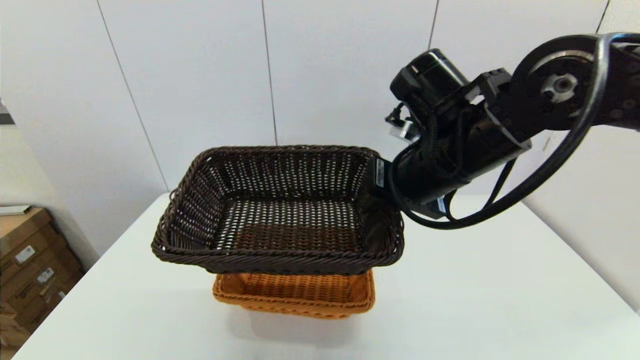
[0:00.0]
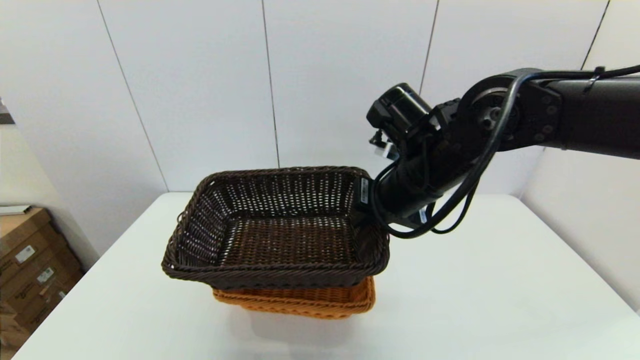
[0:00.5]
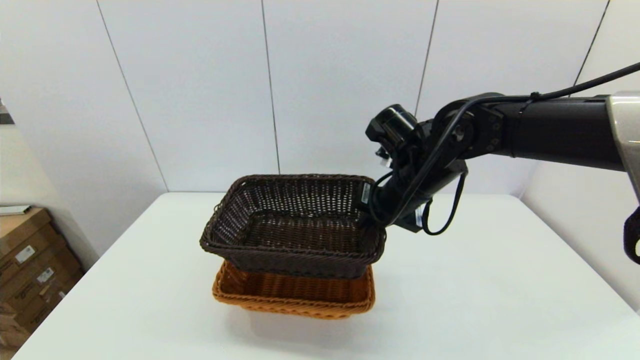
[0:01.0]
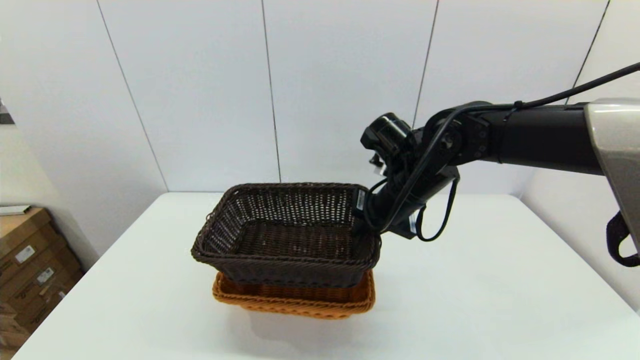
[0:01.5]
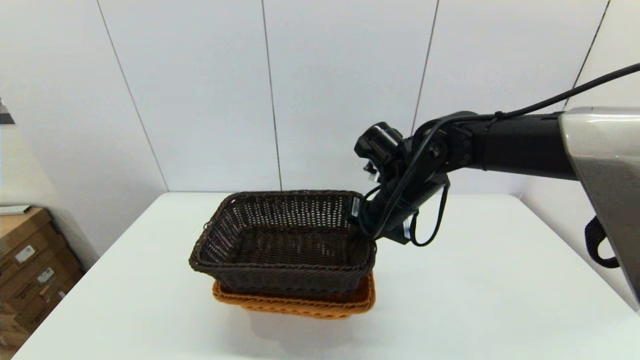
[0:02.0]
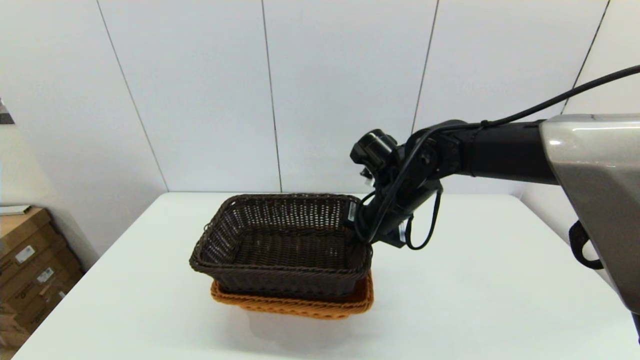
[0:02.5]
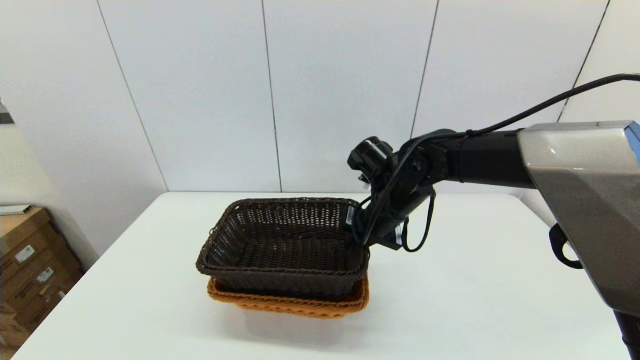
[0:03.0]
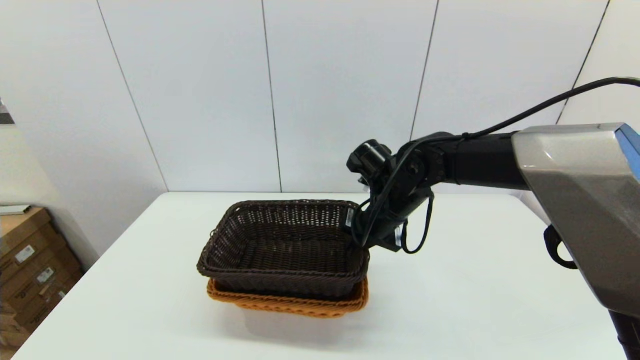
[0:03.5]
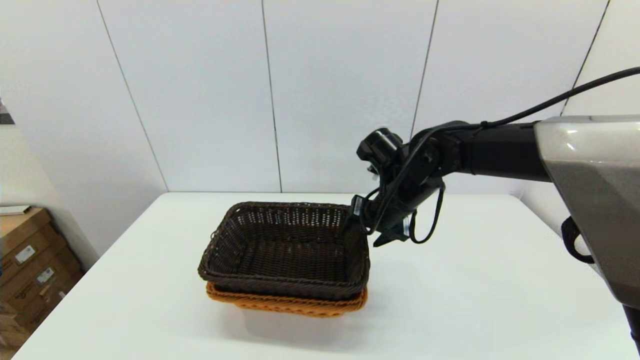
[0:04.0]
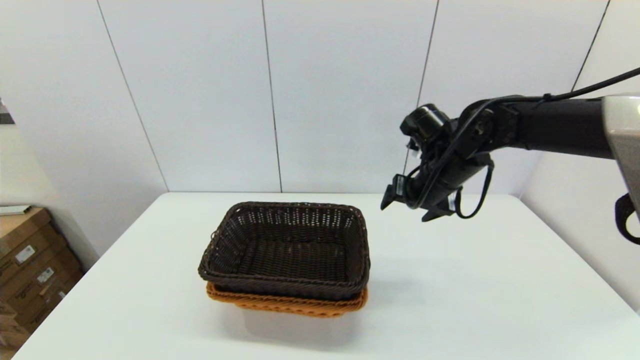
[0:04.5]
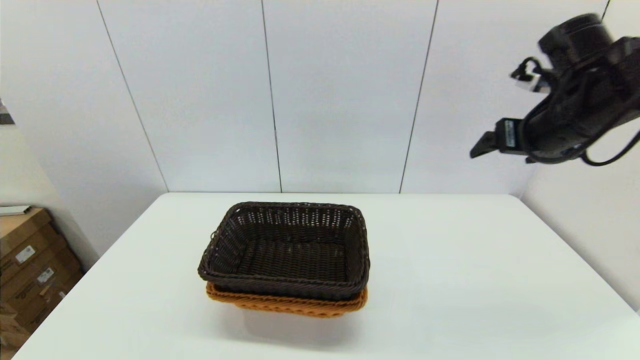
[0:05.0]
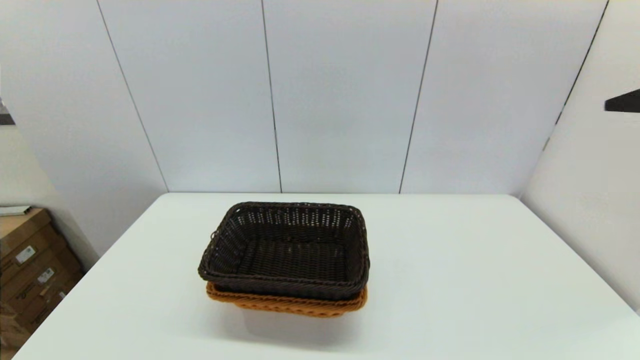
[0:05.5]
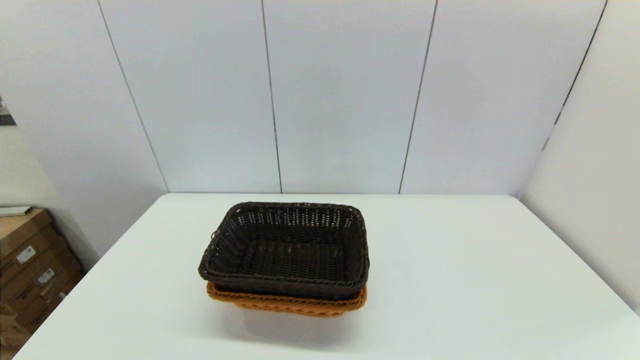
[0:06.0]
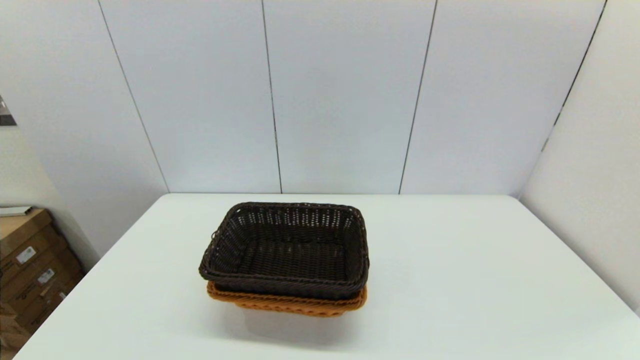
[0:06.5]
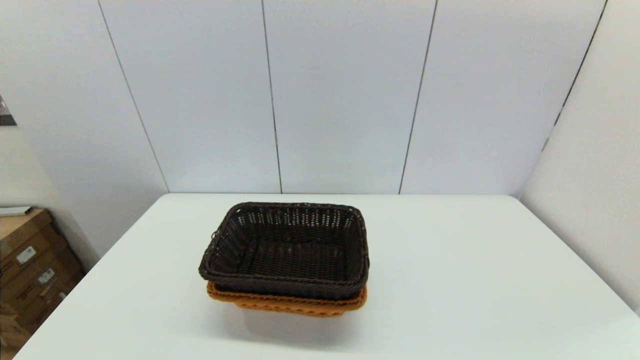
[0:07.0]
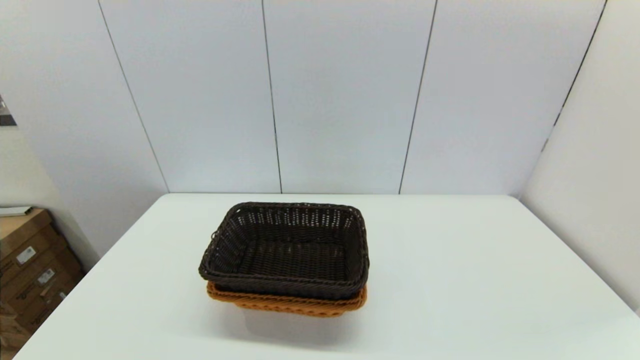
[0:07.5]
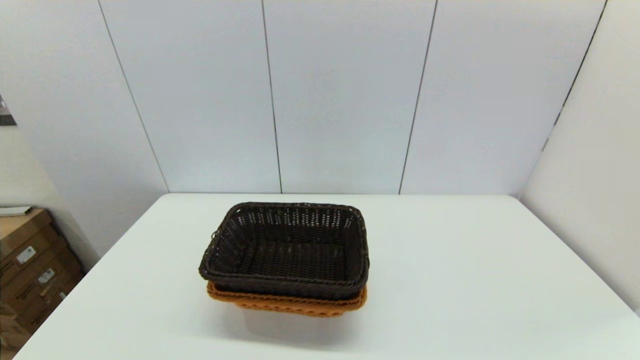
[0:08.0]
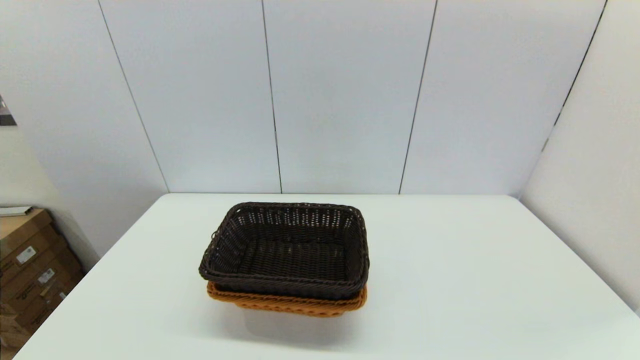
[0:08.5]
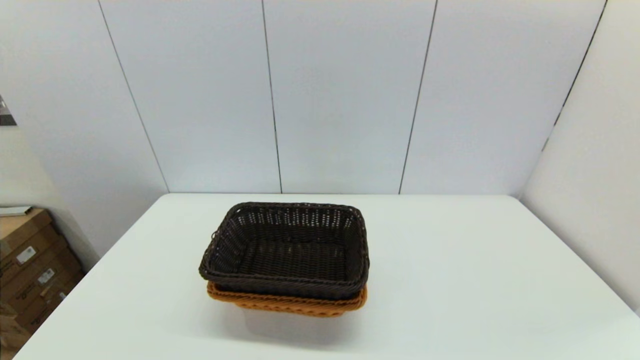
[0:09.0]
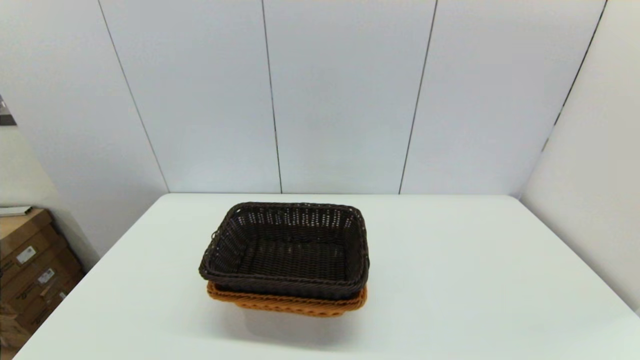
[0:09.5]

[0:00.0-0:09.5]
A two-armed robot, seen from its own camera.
Task of the whole recording: stack a basket on top of another basket.
Step, 0:00.0 to 0:04.5: Place the dark basket into the light color basket with the right gripper.
0:00.0 to 0:02.0: The right gripper travels downward and forward by roughly 10 cm.
0:02.0 to 0:04.0: The right gripper opens its fingers.
0:04.0 to 0:05.5: The right gripper goes some 35 cm to the right, upward and backward.
0:07.5 to 0:09.5: The two grippers keep their place.

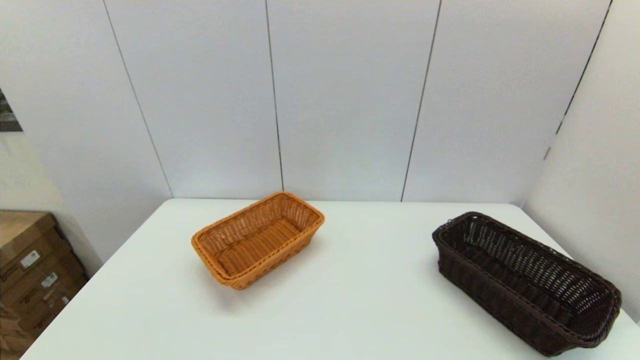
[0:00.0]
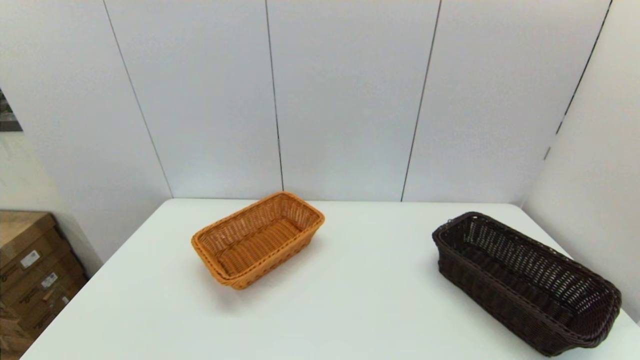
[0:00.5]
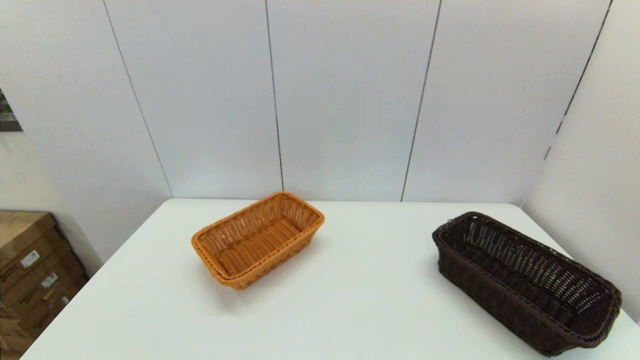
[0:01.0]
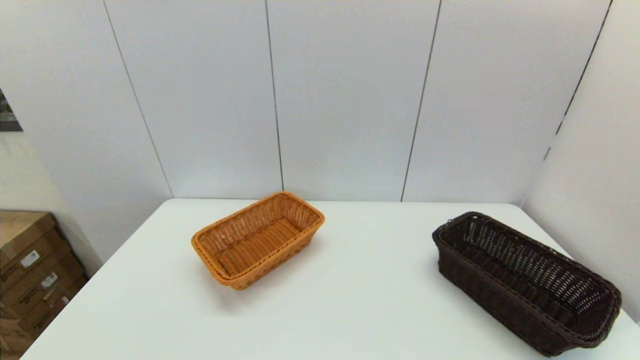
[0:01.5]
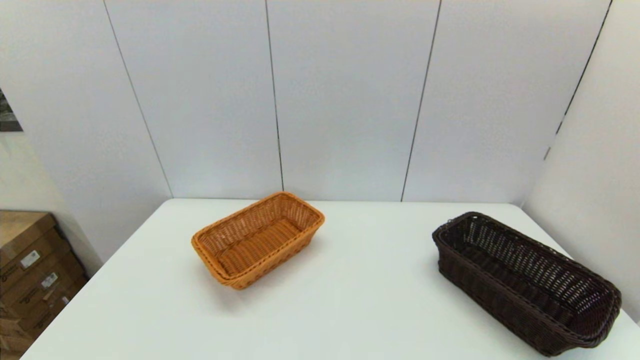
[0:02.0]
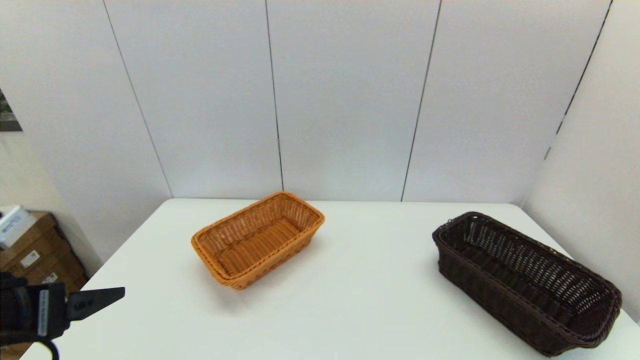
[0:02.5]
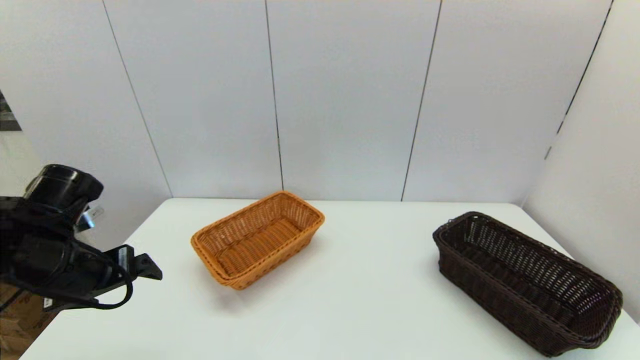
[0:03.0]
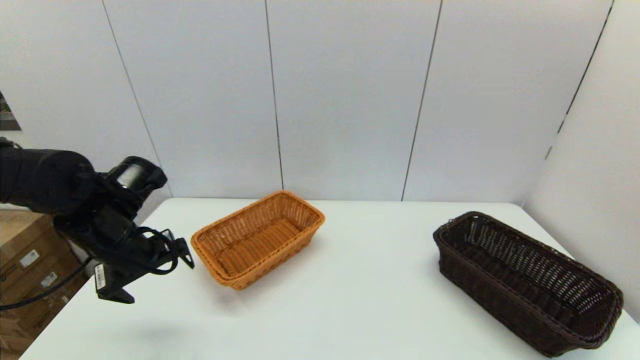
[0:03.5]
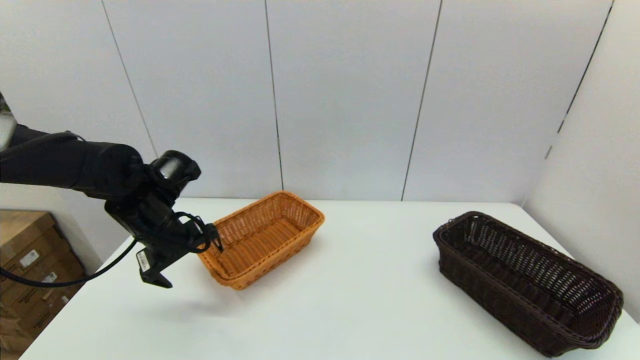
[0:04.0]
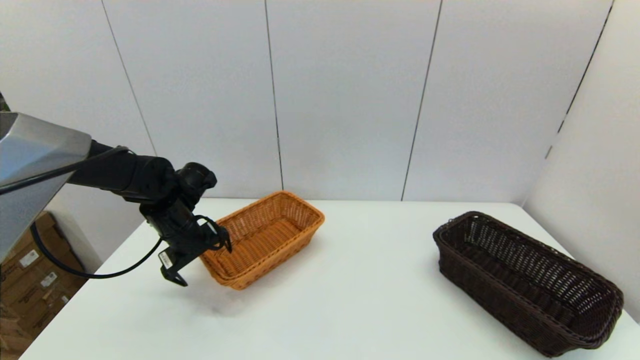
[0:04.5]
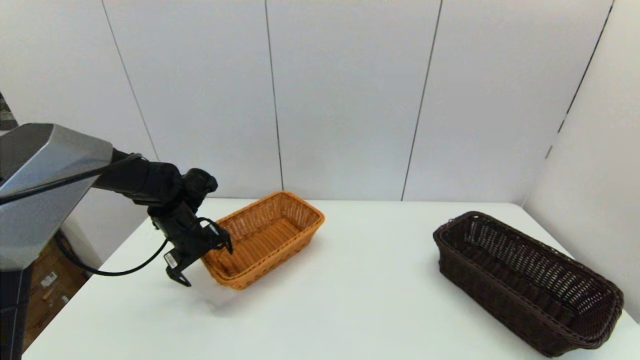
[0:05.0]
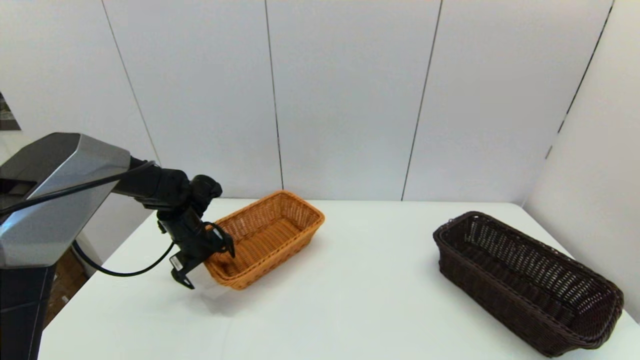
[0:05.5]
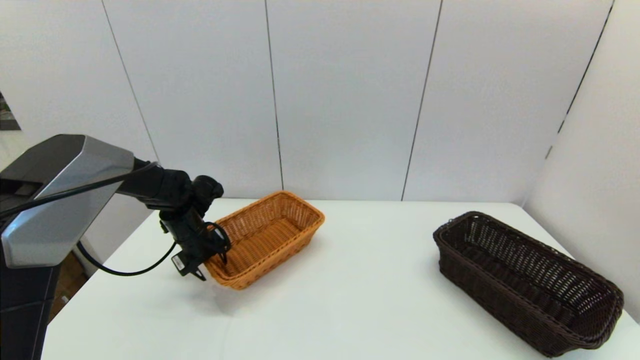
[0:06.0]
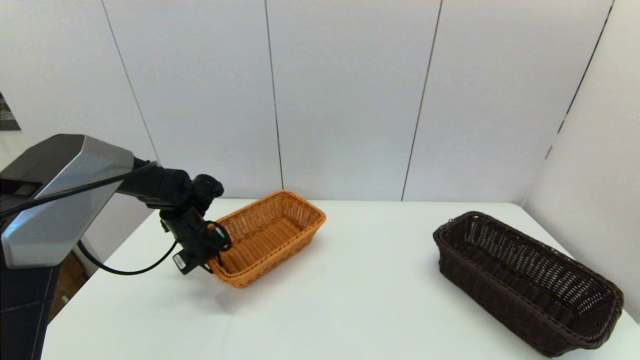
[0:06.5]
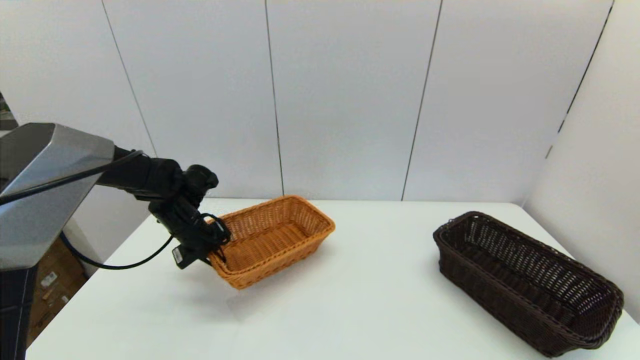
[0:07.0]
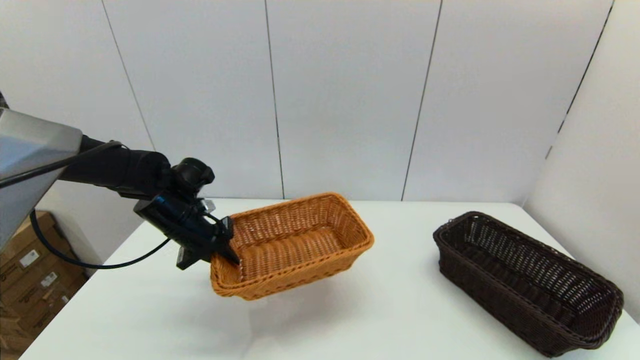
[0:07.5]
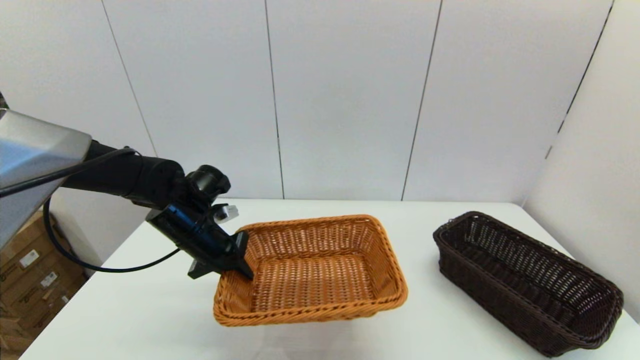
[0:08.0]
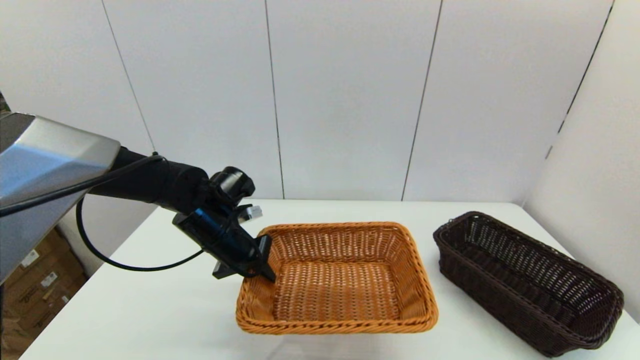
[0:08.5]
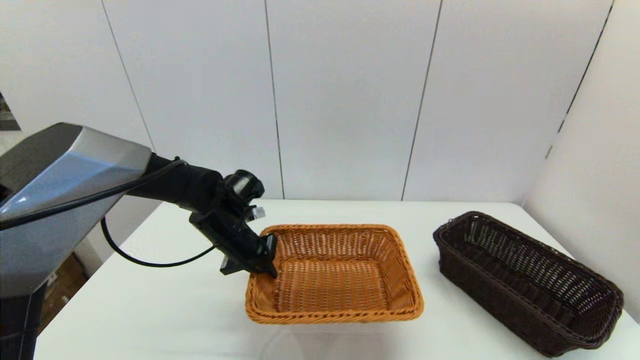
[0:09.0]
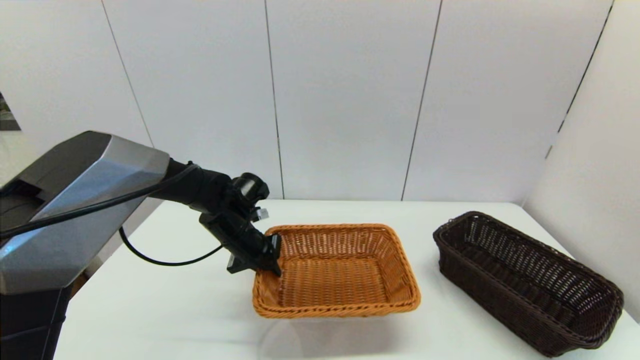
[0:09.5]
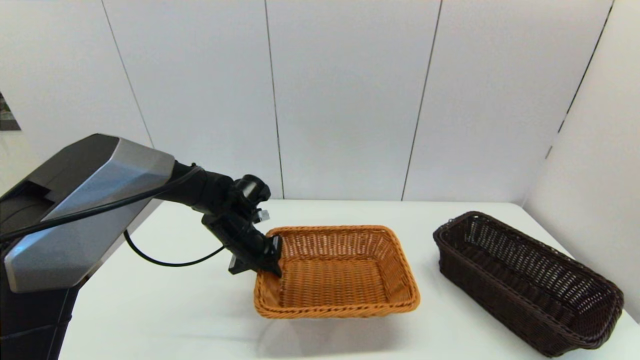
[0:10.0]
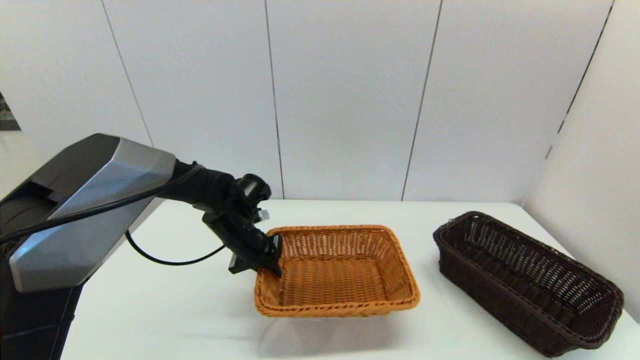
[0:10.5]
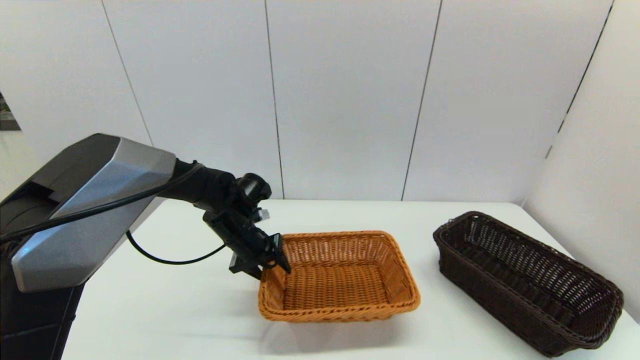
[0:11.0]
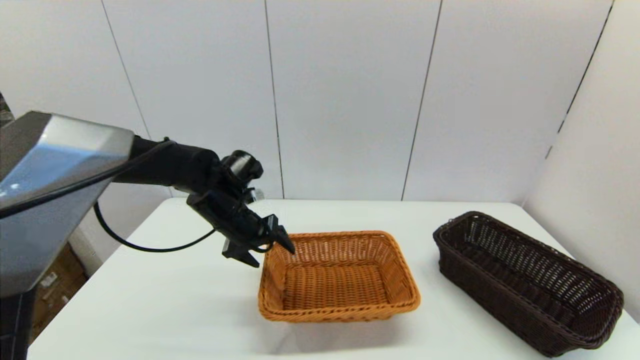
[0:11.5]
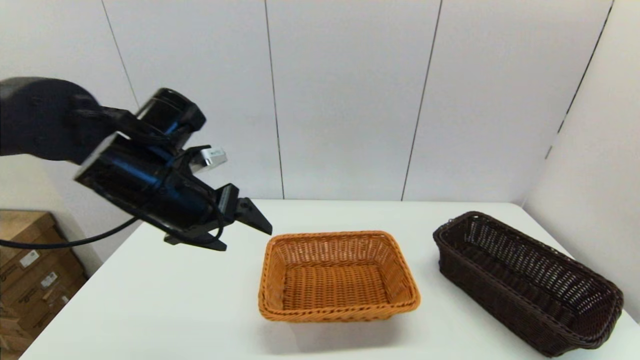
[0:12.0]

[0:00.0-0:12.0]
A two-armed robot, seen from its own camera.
Task of the whole recording: stack a basket on top of another basket.
Step, 0:02.5 to 0:06.0: Grasp the light basket with the left gripper.
Step, 0:06.5 to 0:11.5: Place the light basket on the middle of the table with the left gripper.
0:02.0 to 0:04.0: The left gripper moves forward, roughly 35 cm.
0:04.0 to 0:06.0: The left gripper heads downward and forward, covering some 10 cm, and closes its fingers.
0:06.0 to 0:08.0: The left gripper shifts some 10 cm backward and upward, and closes.
0:08.0 to 0:10.0: The left gripper shifts roughly 5 cm to the right.
0:10.0 to 0:12.0: The left gripper goes roughly 20 cm upward and backward, and opens.
